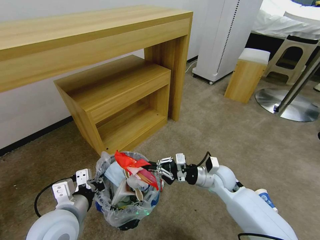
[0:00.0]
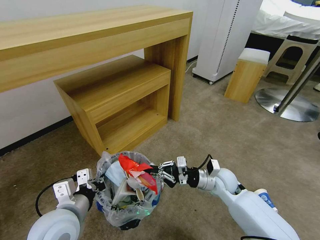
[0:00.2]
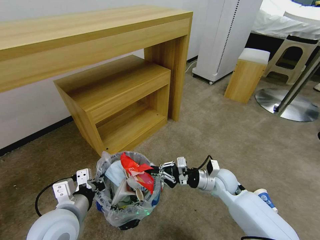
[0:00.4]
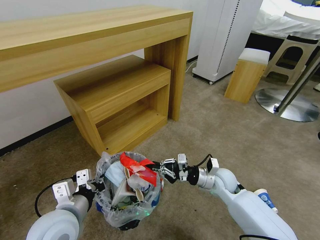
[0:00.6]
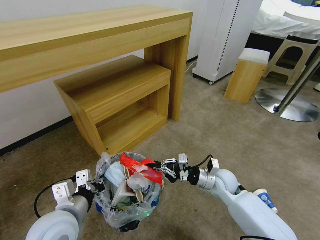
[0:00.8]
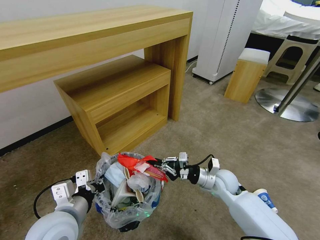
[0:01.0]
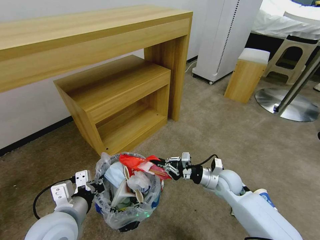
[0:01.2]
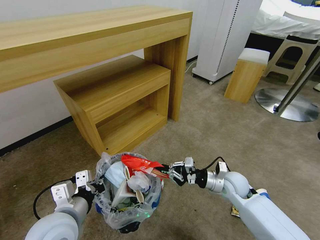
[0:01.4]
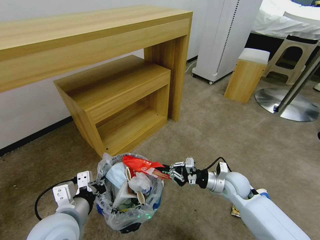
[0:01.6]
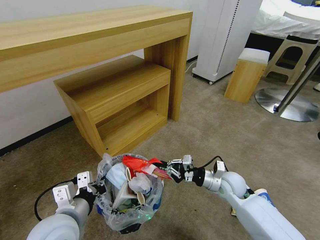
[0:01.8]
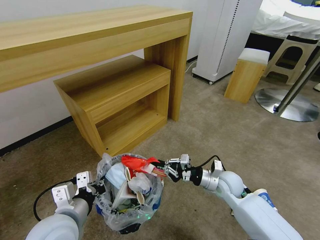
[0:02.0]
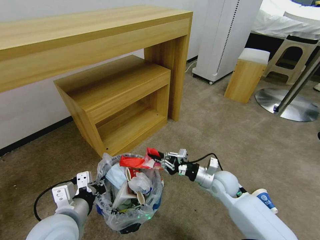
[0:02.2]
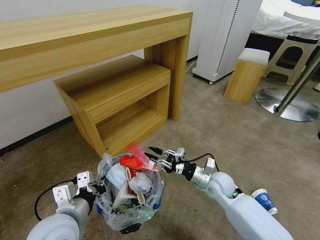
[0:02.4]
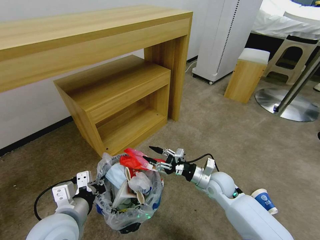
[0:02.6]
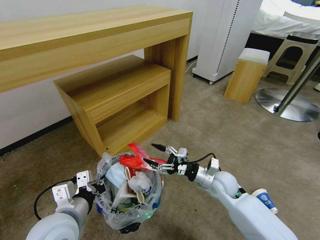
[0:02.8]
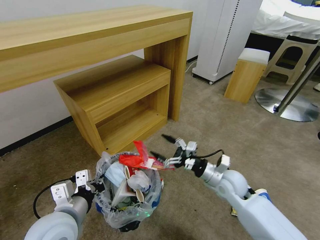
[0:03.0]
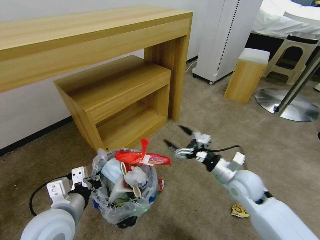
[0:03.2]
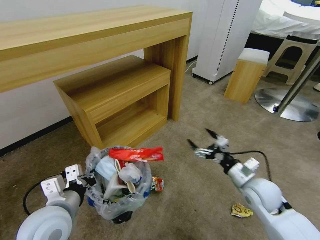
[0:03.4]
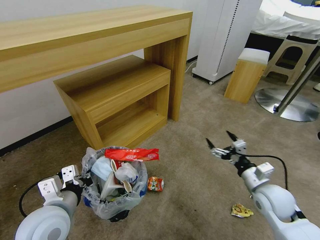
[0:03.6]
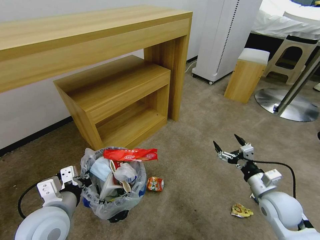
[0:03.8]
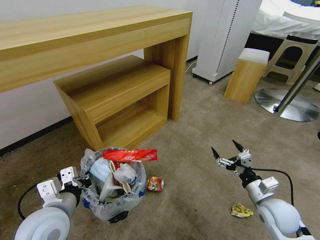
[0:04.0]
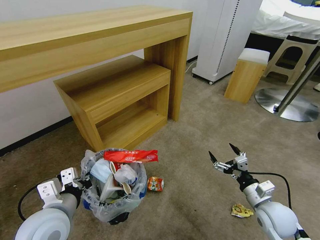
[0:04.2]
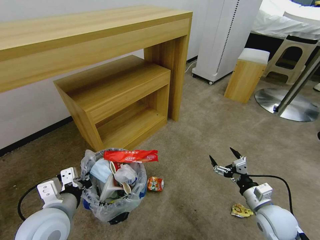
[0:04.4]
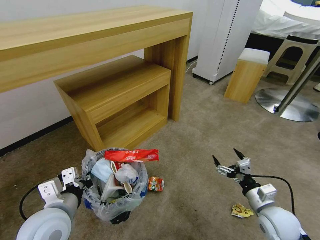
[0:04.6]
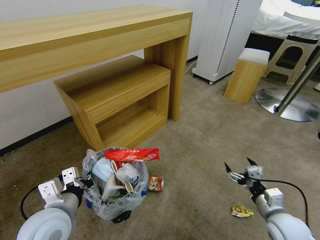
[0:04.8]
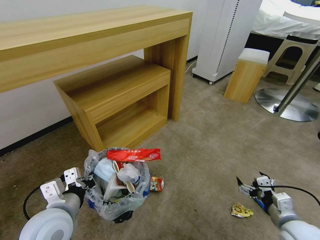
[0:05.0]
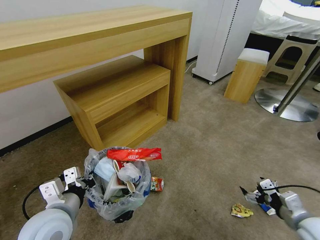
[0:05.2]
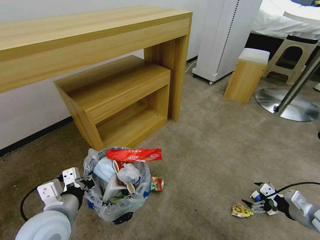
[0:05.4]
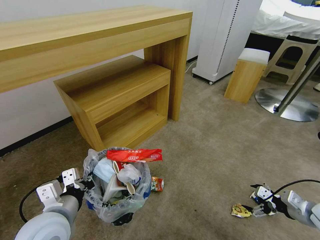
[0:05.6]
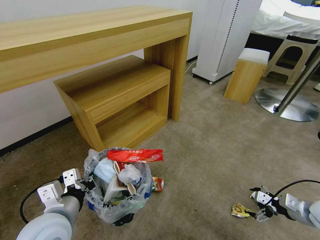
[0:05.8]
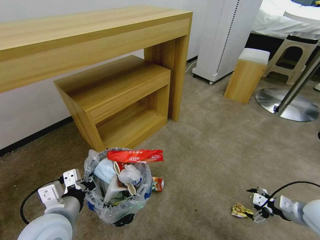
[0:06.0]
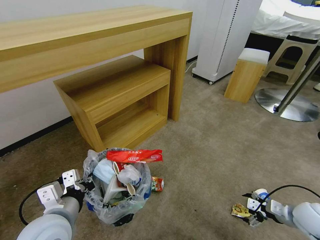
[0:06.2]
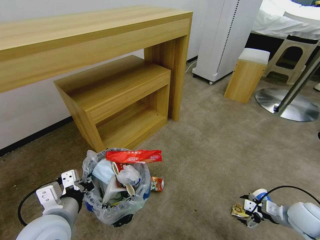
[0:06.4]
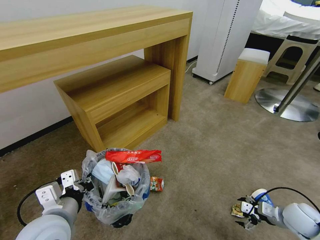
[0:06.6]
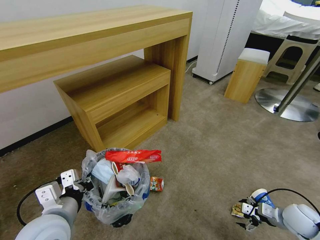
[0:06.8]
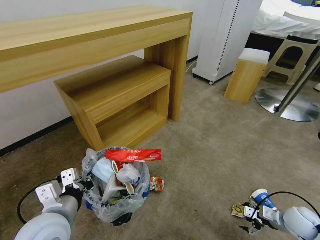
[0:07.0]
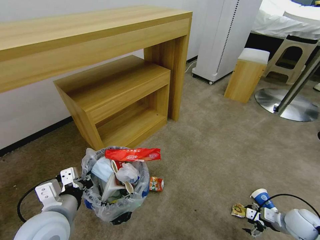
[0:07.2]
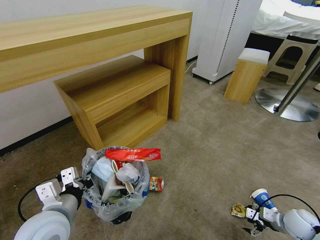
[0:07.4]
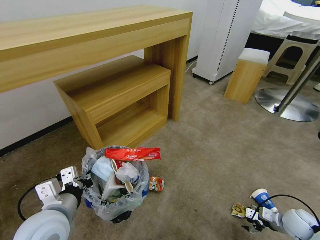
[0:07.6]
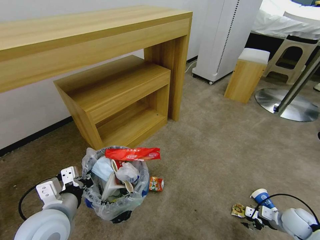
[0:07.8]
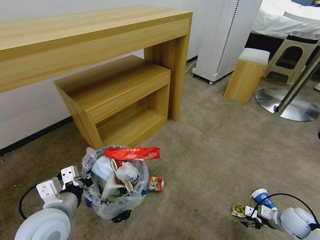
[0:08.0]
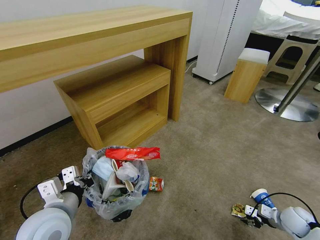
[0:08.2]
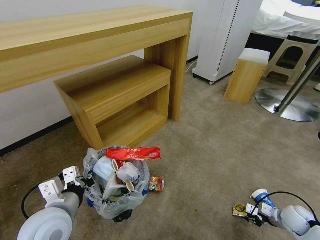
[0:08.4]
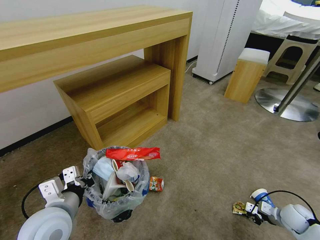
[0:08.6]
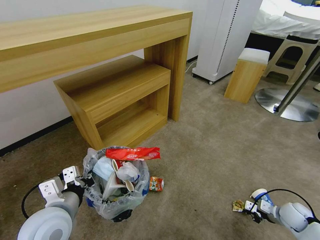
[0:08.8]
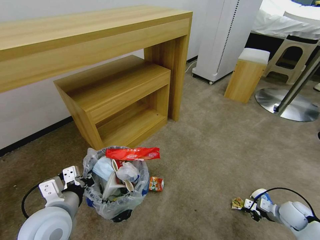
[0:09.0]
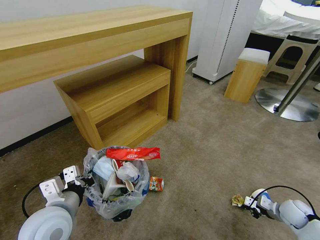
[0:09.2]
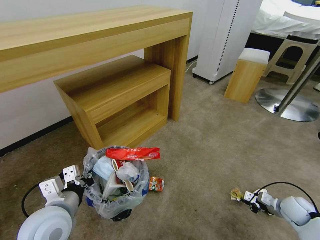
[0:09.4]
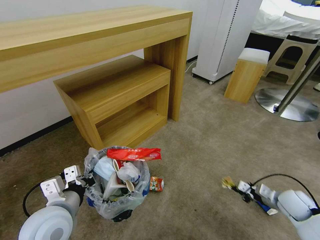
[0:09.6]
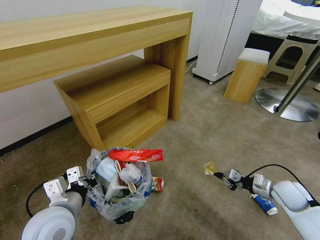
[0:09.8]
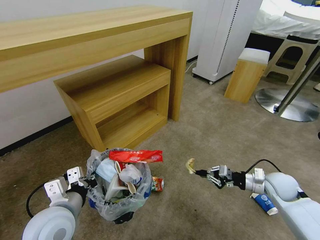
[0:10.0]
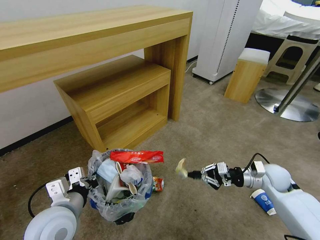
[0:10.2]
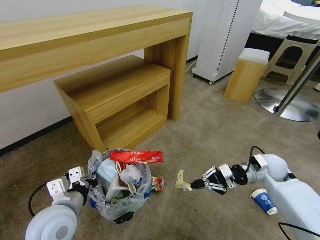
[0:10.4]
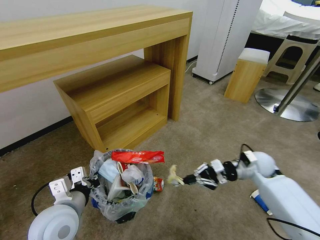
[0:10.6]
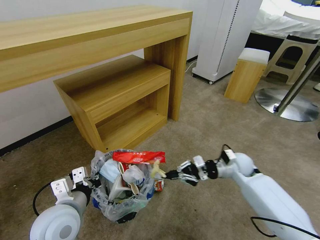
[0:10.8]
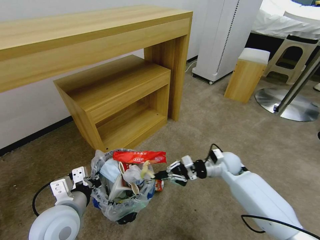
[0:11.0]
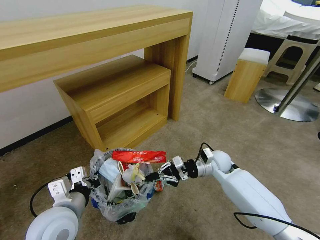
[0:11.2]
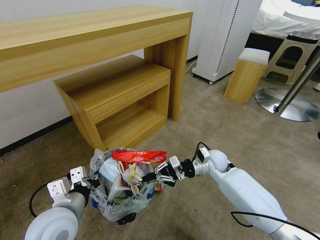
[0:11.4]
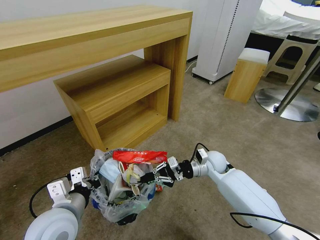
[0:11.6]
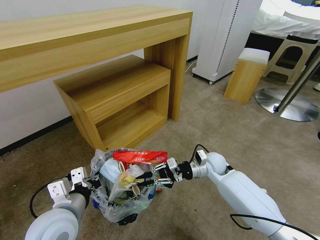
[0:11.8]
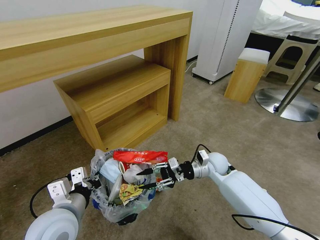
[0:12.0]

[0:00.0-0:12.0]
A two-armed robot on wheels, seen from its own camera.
Task of the whole recording: Pick up the trash bin and place the garbage on the floor into it.
0:00.0 to 0:01.6: The right gripper changes place by some 5 cm.
0:01.6 to 0:03.0: The right gripper opens up.
0:03.0 to 0:04.4: The right gripper heads to the right and backward, covering some 15 cm.
0:04.4 to 0:06.0: The right gripper is displaced to the right by roughly 15 cm.
0:06.0 to 0:07.6: The right gripper heads downward, covering about 10 cm.
0:07.6 to 0:09.0: The right gripper closes its fingers.
0:09.0 to 0:10.4: The right gripper goes roughly 25 cm upward, to the left and forward.
0:10.4 to 0:12.0: The right gripper shifts about 15 cm to the left, and opens.

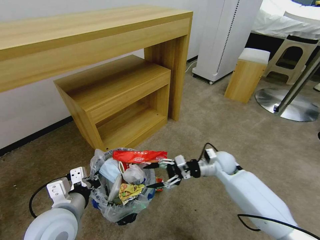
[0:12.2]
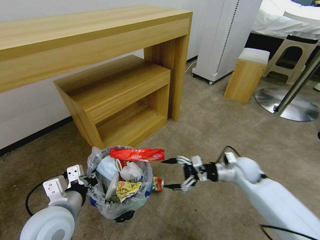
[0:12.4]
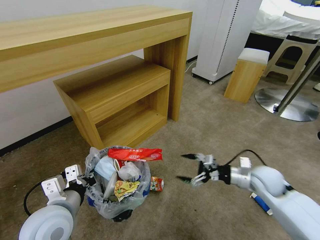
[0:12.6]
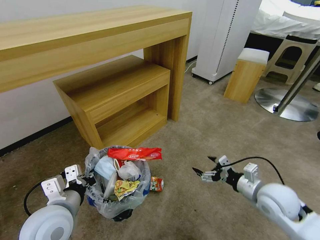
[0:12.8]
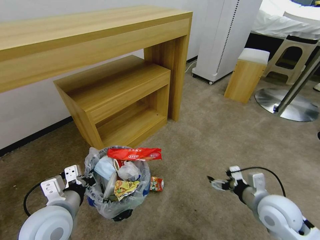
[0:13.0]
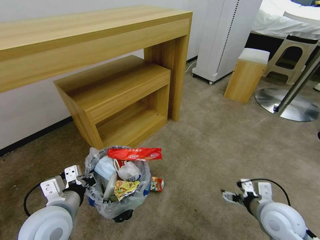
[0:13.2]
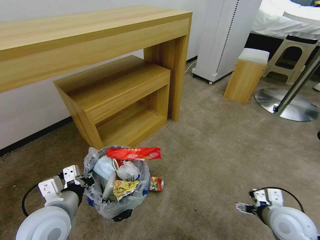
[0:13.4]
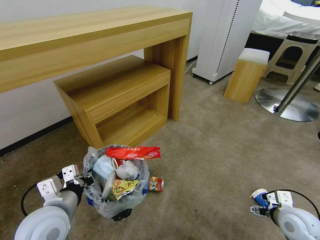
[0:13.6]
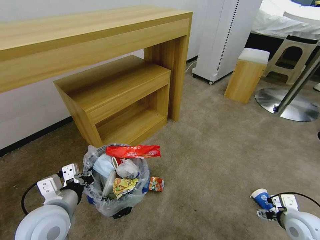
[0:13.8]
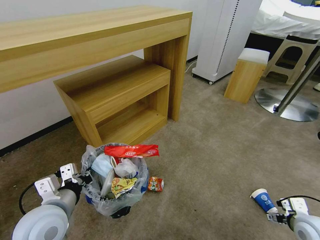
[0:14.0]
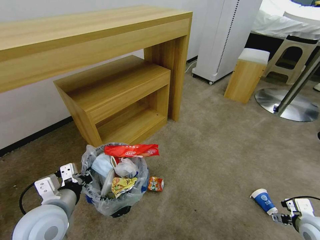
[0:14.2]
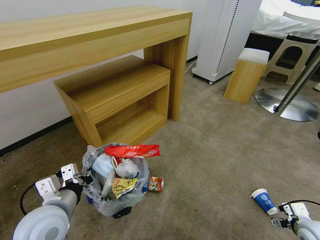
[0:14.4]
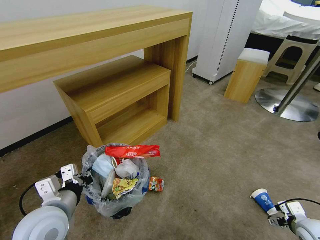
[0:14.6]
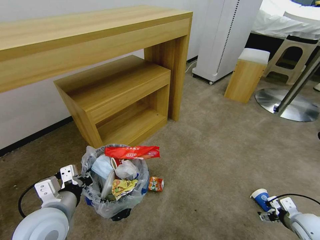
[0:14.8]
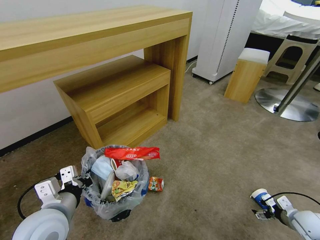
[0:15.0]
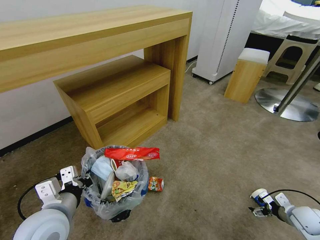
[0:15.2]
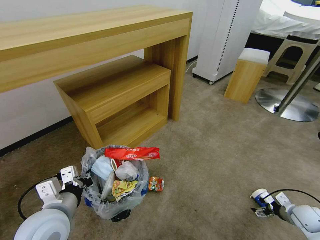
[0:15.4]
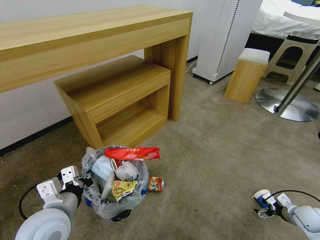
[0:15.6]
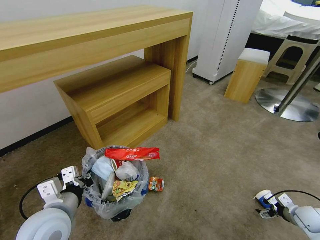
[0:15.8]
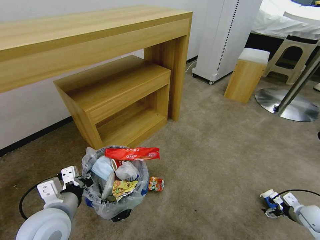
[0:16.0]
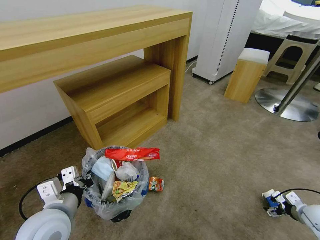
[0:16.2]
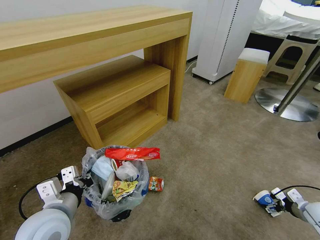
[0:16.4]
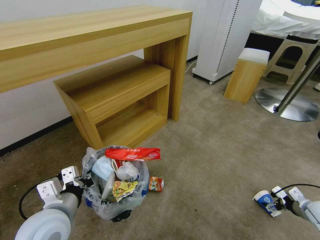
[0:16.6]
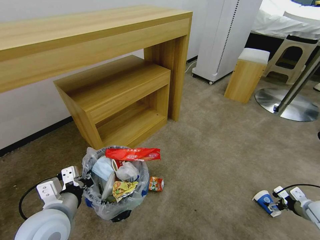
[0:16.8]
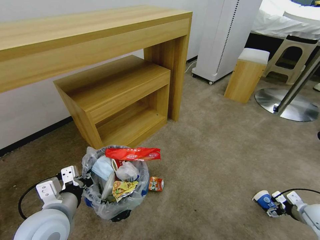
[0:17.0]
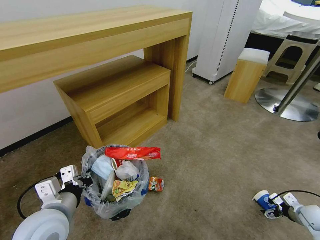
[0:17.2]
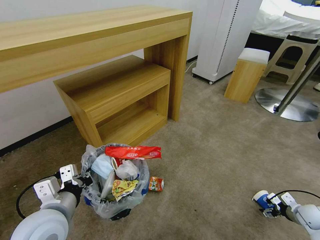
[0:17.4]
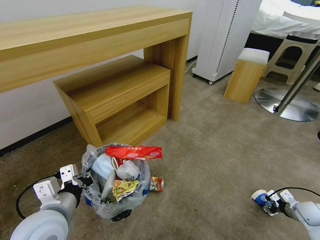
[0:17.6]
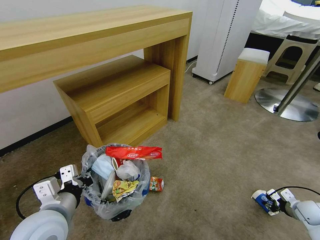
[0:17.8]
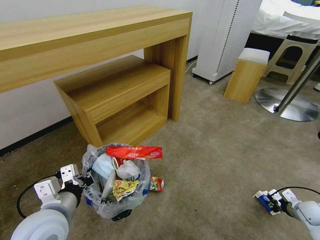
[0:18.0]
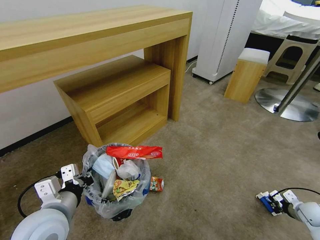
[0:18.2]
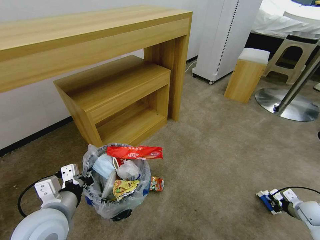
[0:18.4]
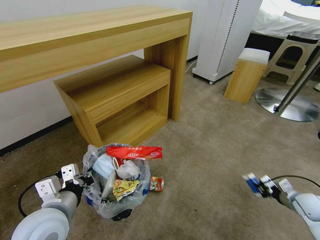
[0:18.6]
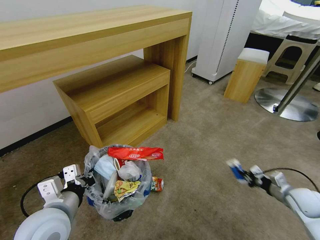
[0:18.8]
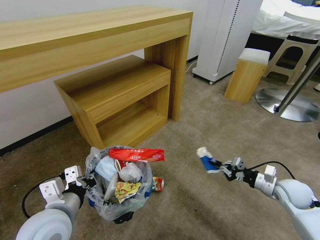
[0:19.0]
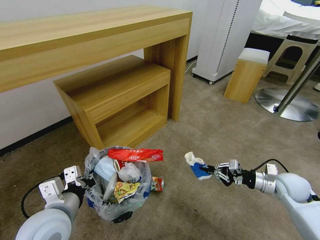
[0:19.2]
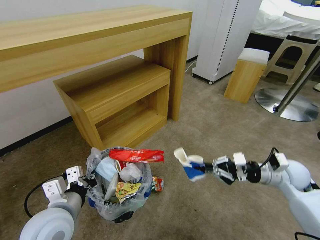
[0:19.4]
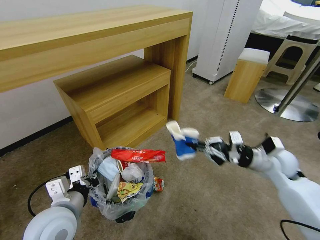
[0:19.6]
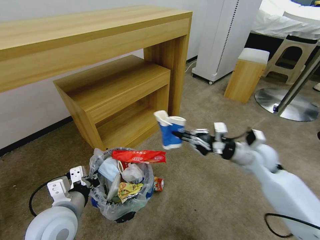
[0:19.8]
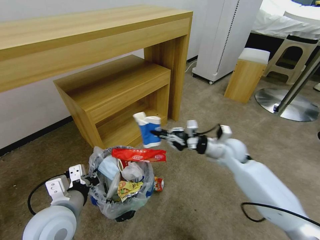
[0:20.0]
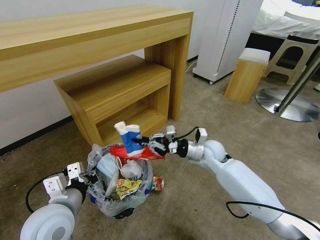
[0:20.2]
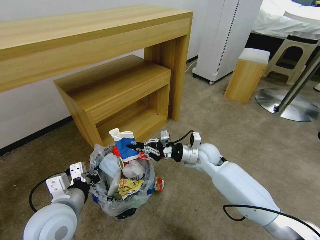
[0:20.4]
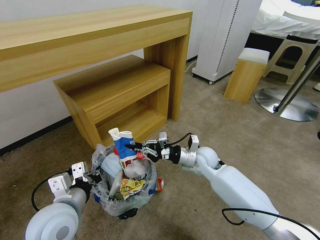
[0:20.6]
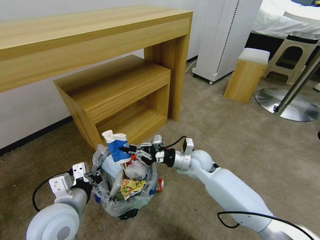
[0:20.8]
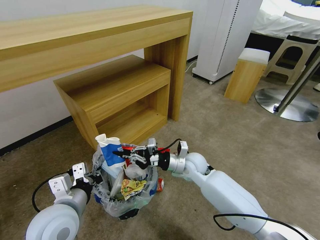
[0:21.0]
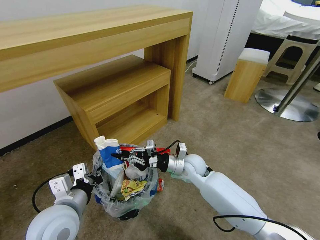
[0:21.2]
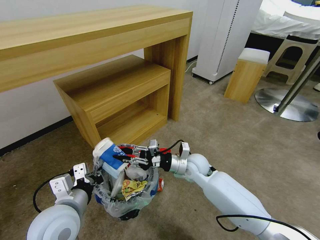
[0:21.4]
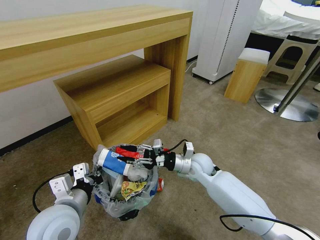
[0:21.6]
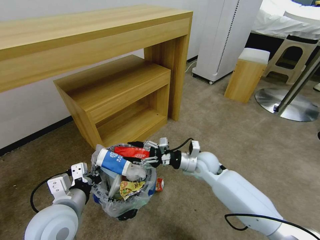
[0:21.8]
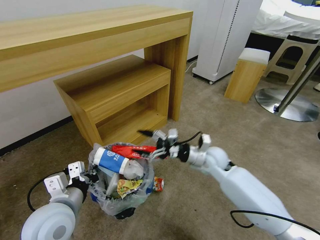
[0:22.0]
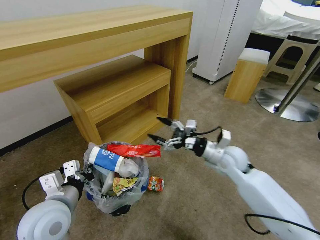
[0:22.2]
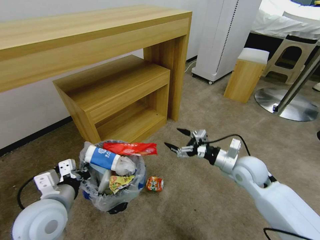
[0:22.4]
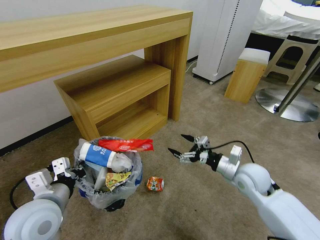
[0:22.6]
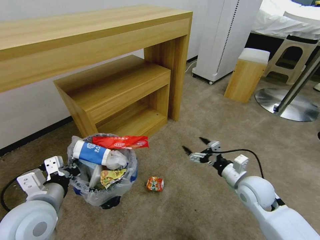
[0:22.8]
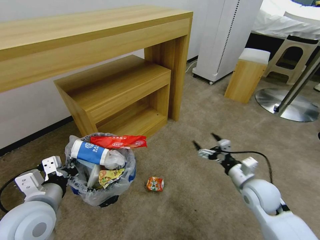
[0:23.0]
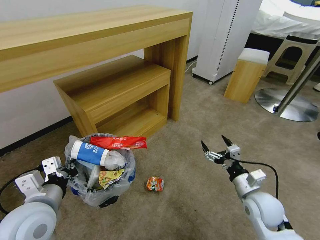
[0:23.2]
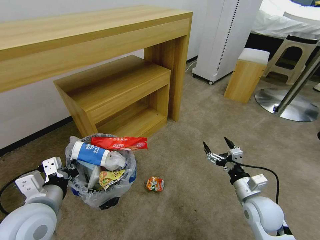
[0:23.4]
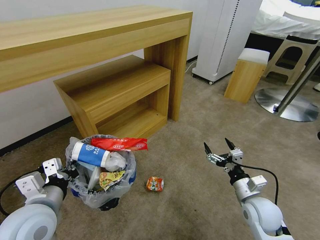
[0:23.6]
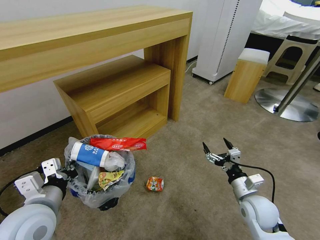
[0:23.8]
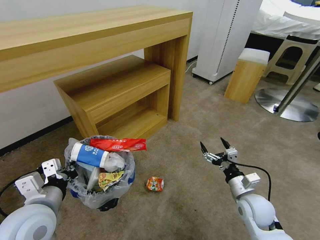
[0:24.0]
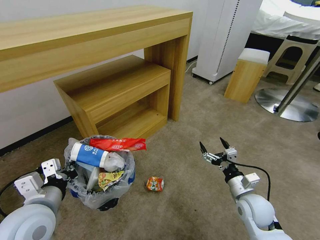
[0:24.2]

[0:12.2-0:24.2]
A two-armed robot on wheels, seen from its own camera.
Task of the whole recording: Pick up the trash bin and place the garbage on the floor into it.
0:12.2 to 0:13.8: The right gripper shifts some 30 cm backward and to the right.
0:13.8 to 0:15.2: The right gripper moves to the right and downward, some 15 cm.
0:15.2 to 0:16.6: The right gripper shifts by approximately 5 cm.
0:16.6 to 0:18.2: The right gripper closes its fingers.
0:18.2 to 0:19.8: The right gripper travels to the left, upward and forward by roughly 40 cm.
0:19.8 to 0:21.2: The right gripper shifts about 20 cm to the left and downward.
0:21.2 to 0:22.6: The right gripper moves to the right, roughly 15 cm, and opens up.
0:22.6 to 0:24.2: The right gripper heads downward and backward, covering approximately 10 cm.
